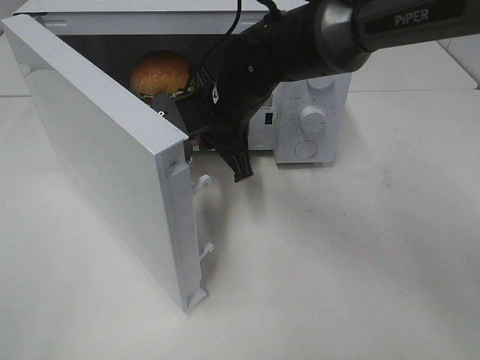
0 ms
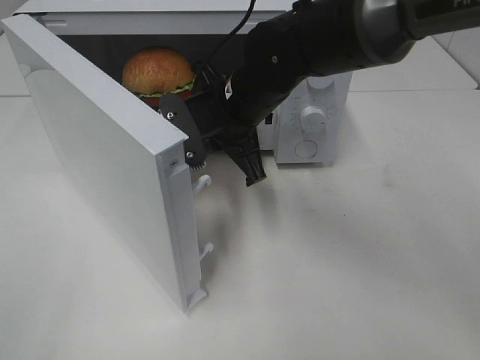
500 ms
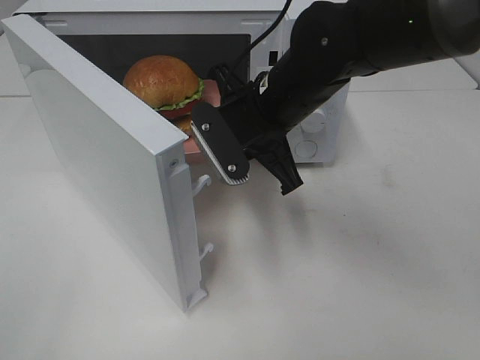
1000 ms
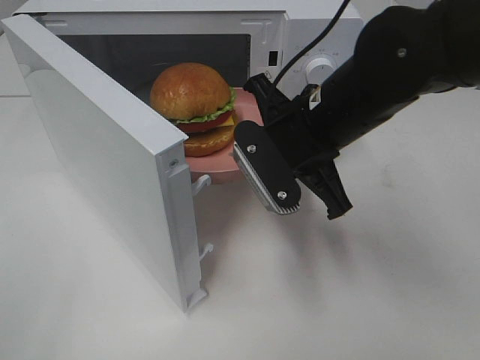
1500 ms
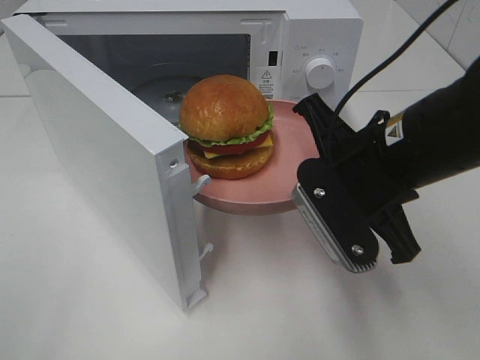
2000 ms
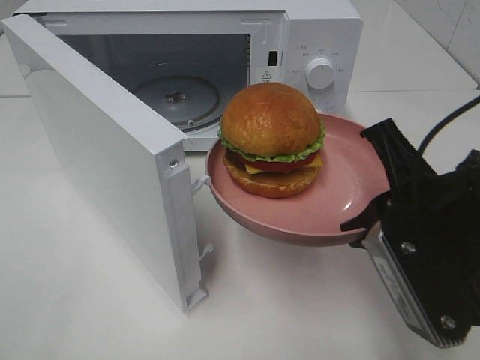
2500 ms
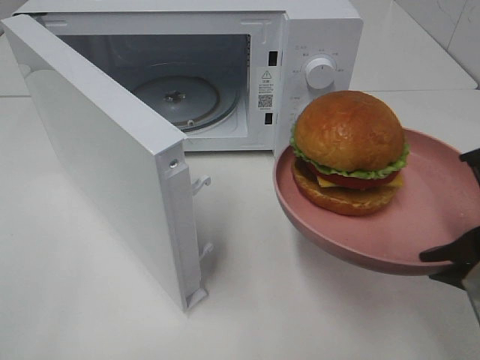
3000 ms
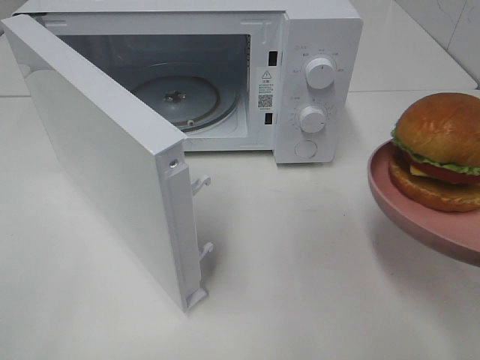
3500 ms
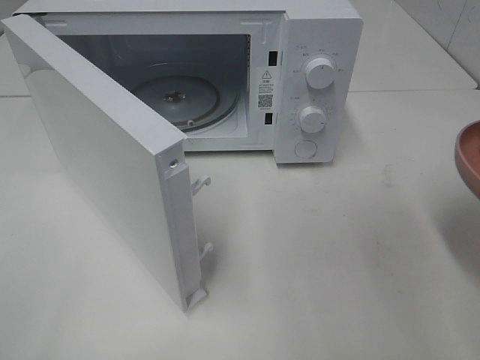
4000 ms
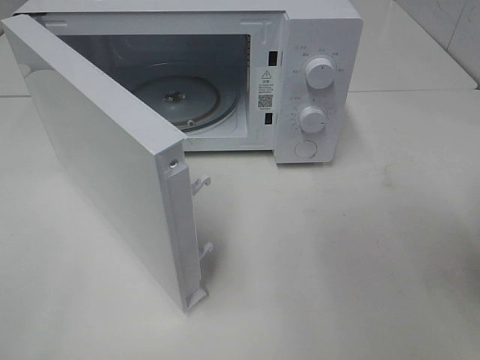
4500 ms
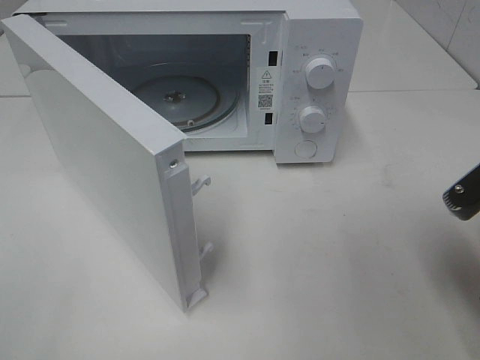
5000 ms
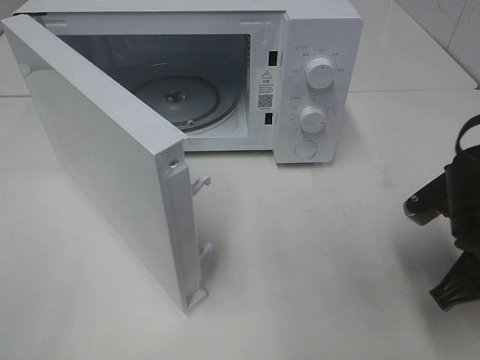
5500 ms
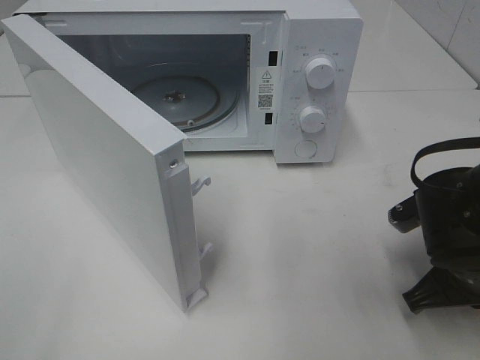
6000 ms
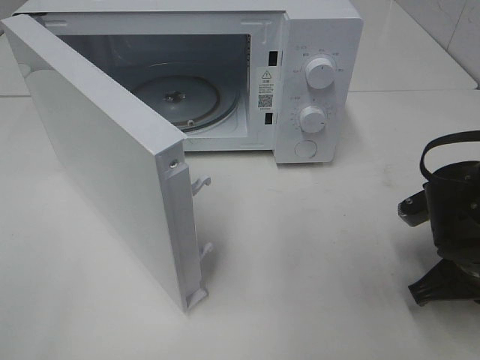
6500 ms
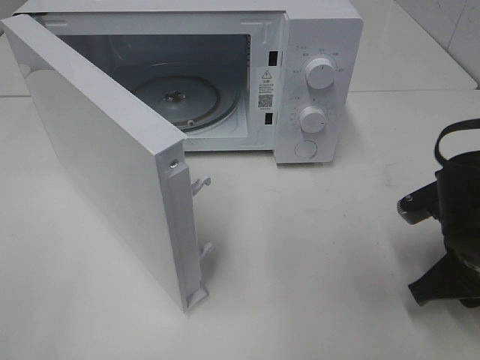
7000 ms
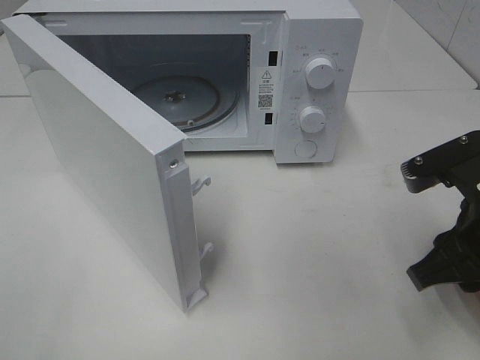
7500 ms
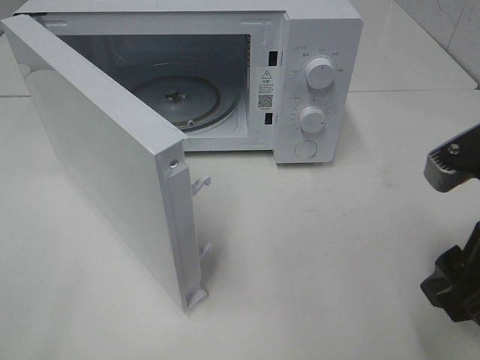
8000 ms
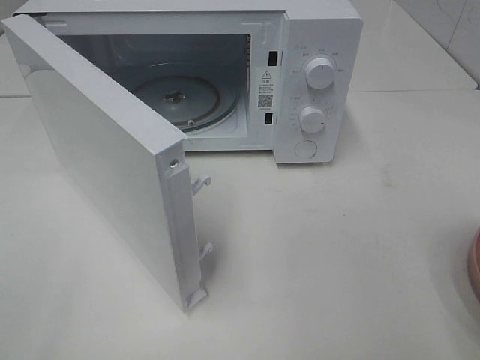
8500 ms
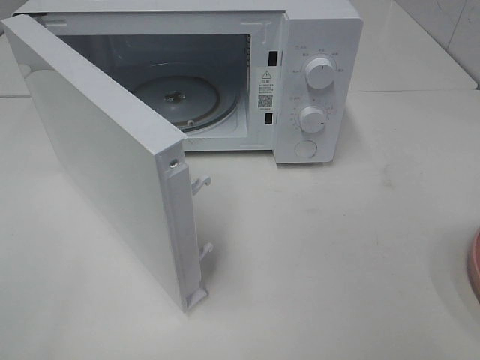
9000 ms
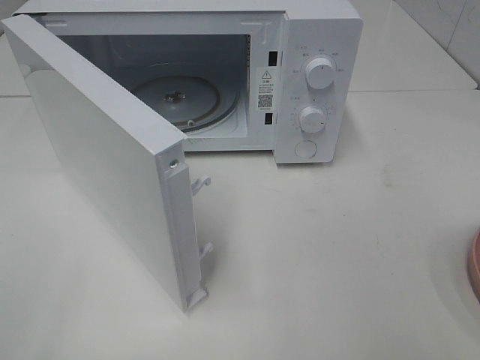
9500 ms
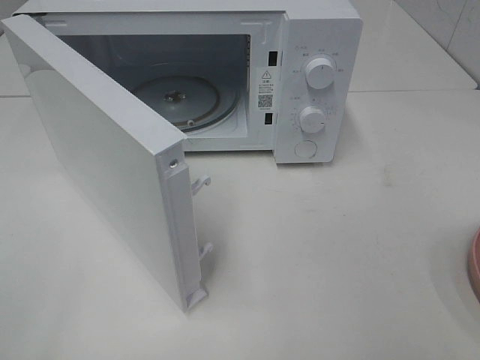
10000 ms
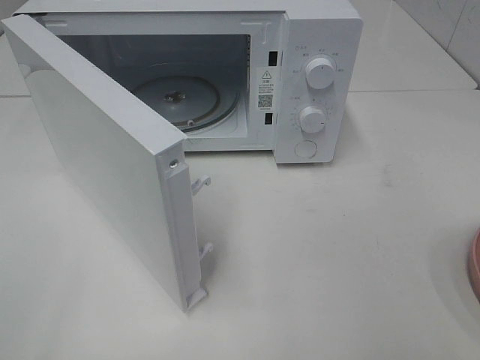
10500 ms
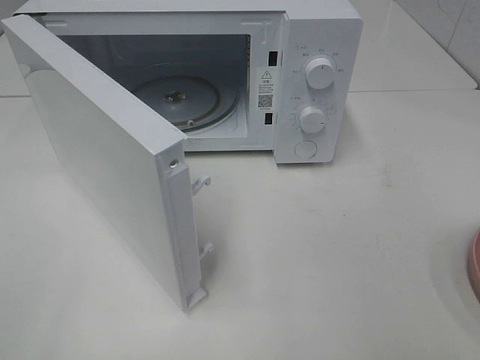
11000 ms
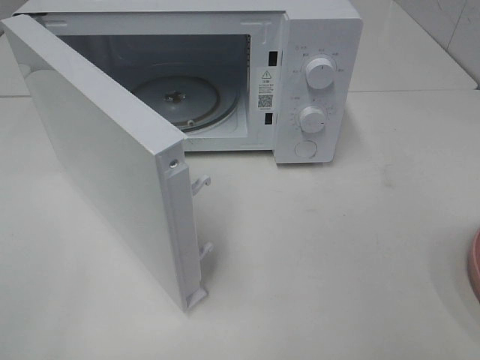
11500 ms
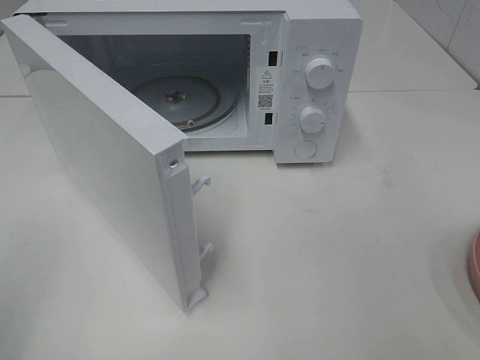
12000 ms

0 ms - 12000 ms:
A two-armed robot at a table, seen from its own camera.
Task of the whole recording: Heat the burger.
Step, 0 ms - 7000 ms: Right hand: place the plate on the table.
0 ms - 2000 ms: The right gripper moves backward and to the right, approximately 20 cm.
2000 ms - 4000 ms: The right gripper heads to the right and backward, covering roughly 15 cm.
4000 ms - 6000 ms: The right gripper travels downward and forward by about 15 cm.
6000 ms - 8000 ms: The right gripper heads upward and backward, covering approximately 15 cm, and opens its fingers.
8000 ms - 10000 ms: The right gripper goes roughly 15 cm backward and to the right.

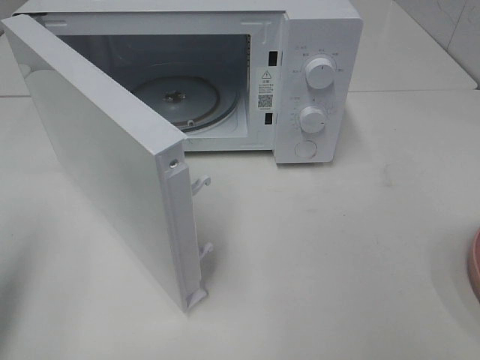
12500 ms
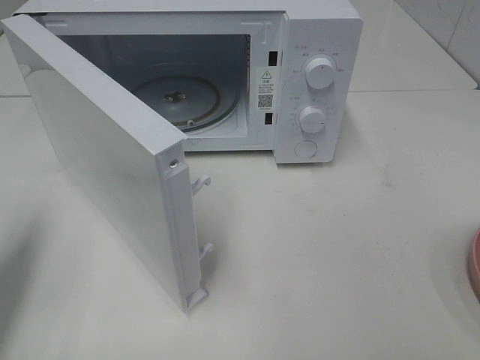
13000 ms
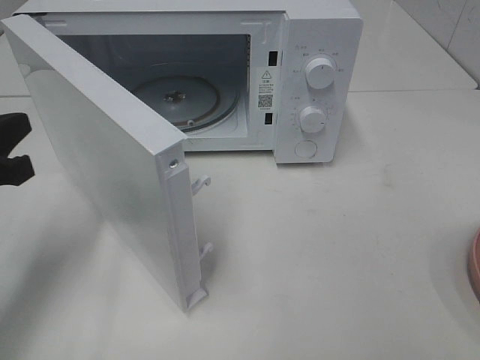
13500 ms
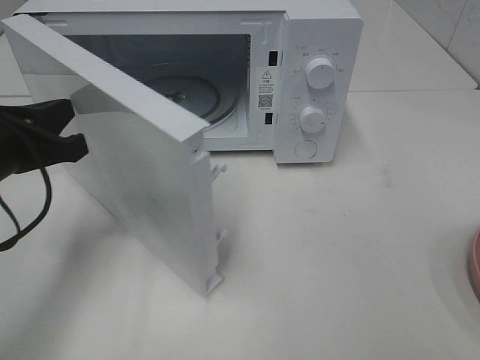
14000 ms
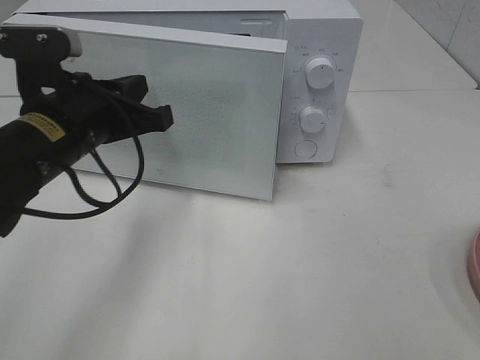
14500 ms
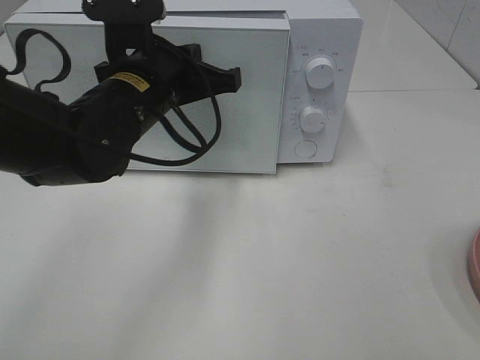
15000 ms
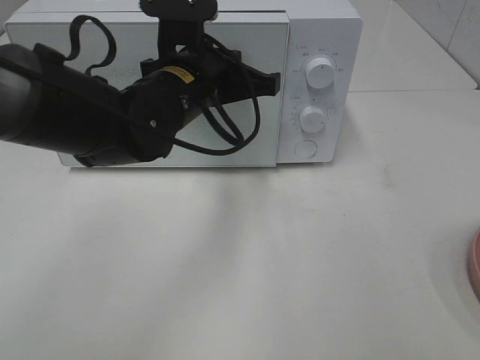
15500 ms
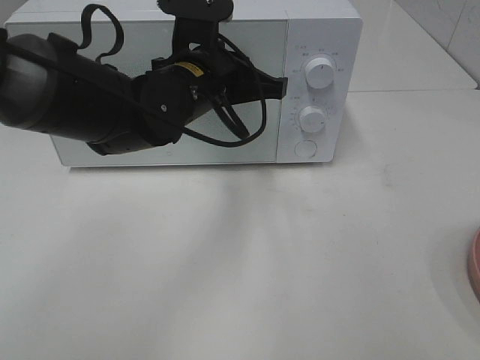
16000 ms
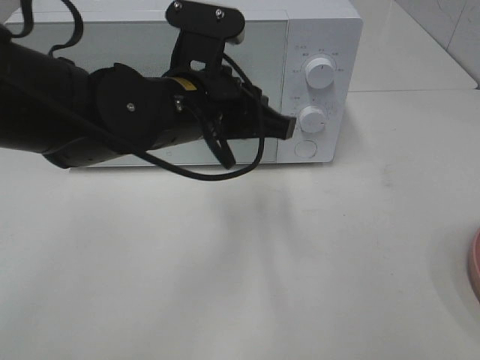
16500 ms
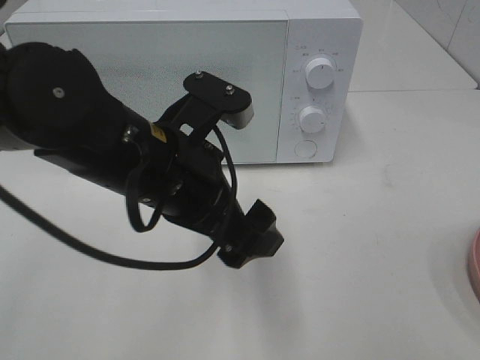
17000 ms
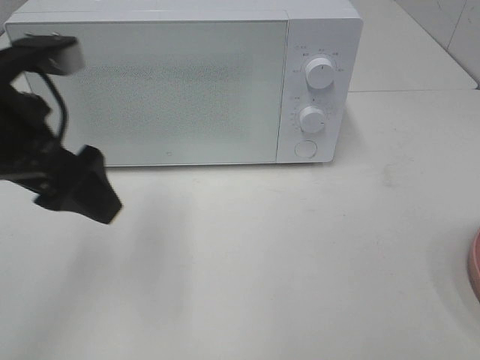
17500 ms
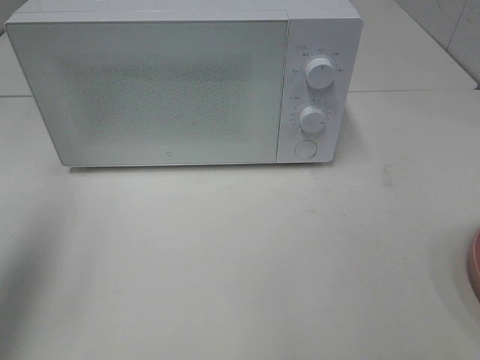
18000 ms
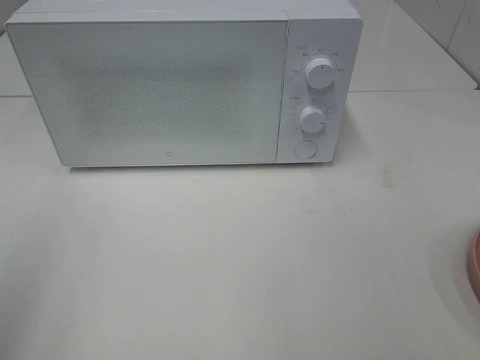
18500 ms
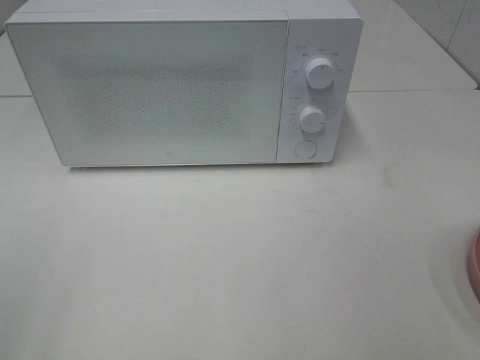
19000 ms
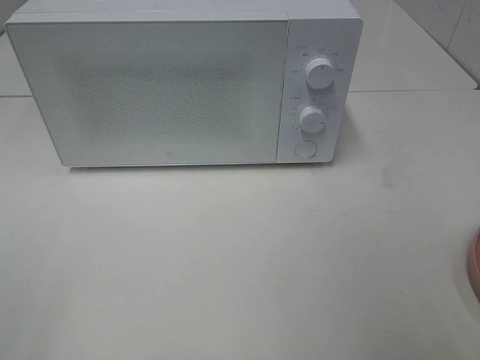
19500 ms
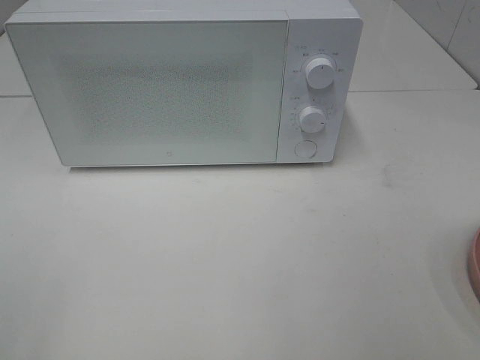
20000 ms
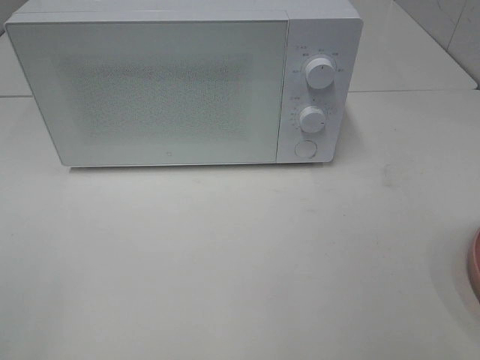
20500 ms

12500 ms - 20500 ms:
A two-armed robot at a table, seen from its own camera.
Task of the whole recording: Heat the burger.
Step, 12500 ms - 16000 ms: Left hand: close the microwave door.
12500 ms - 14500 ms: The left gripper is displaced to the right and forward by about 20 cm.
14500 ms - 16500 ms: The left gripper moves to the right, about 10 cm, and opens its fingers.
16500 ms - 18500 ms: The left gripper shifts roughly 40 cm to the left, backward and upward, and opens.

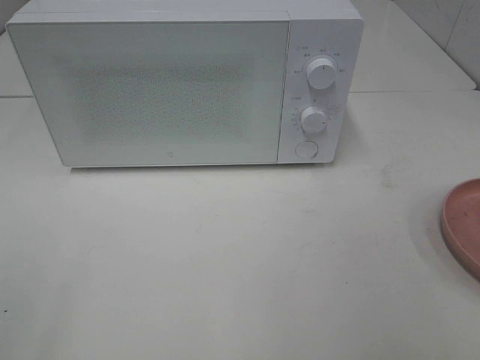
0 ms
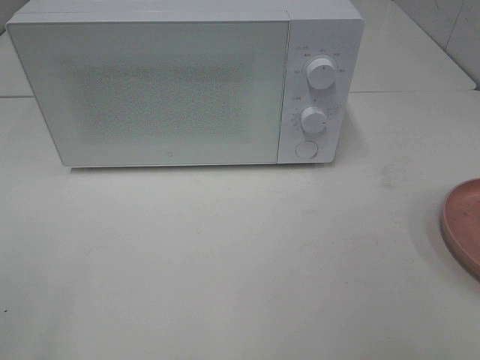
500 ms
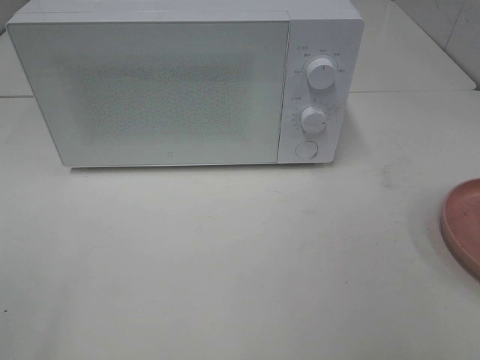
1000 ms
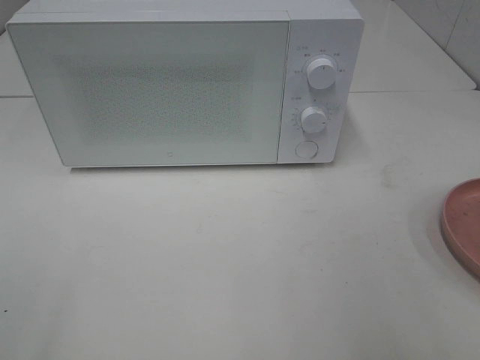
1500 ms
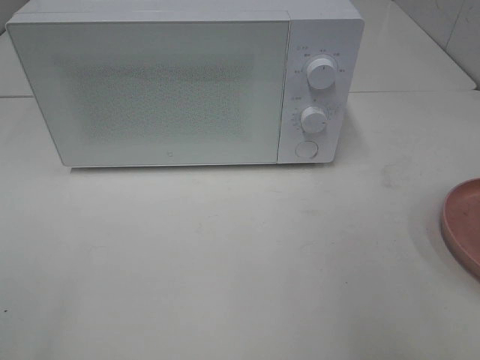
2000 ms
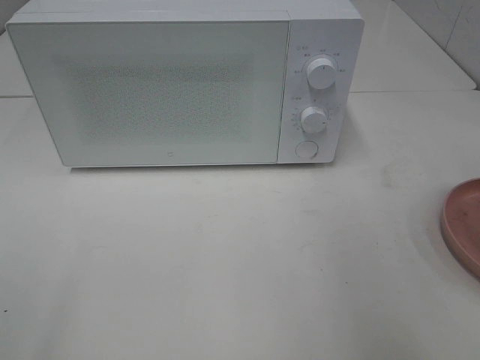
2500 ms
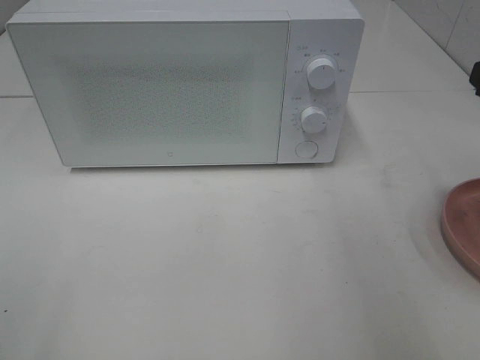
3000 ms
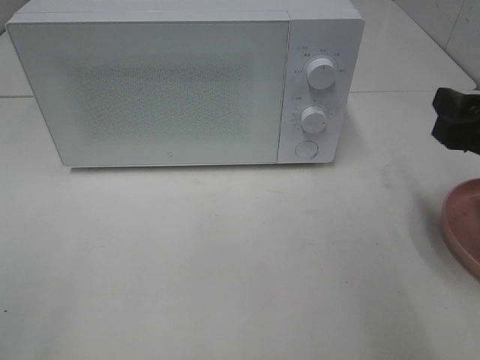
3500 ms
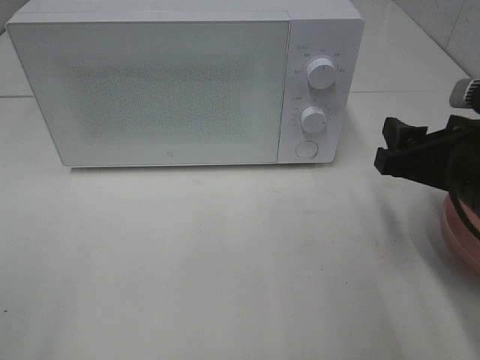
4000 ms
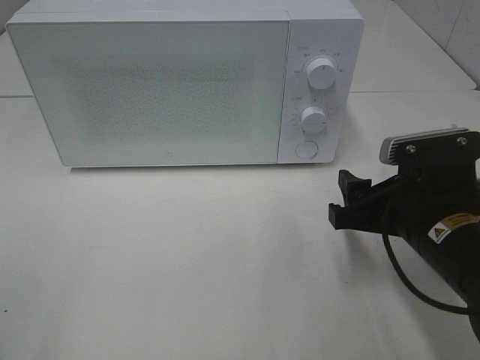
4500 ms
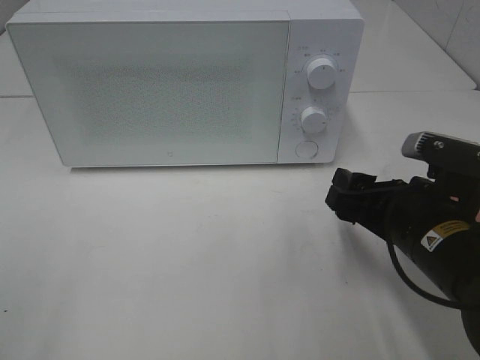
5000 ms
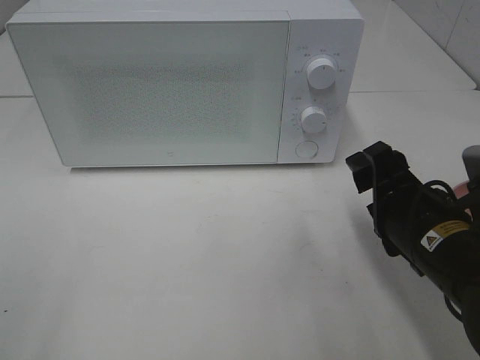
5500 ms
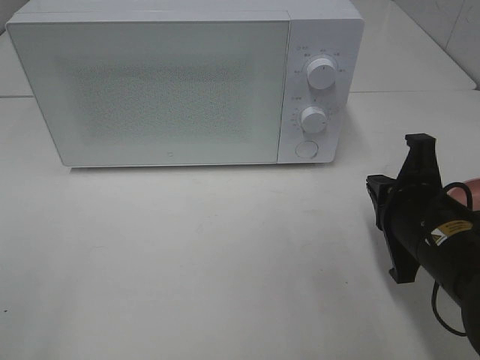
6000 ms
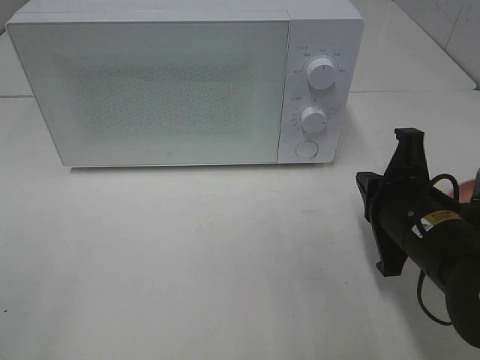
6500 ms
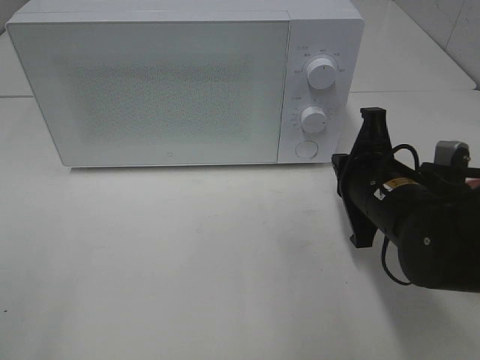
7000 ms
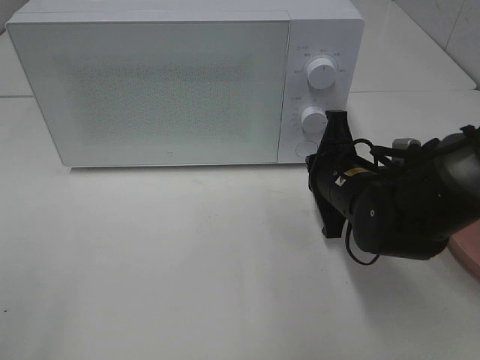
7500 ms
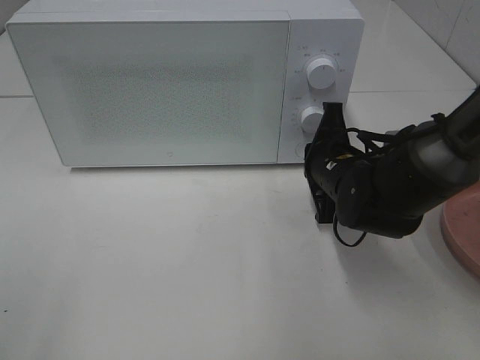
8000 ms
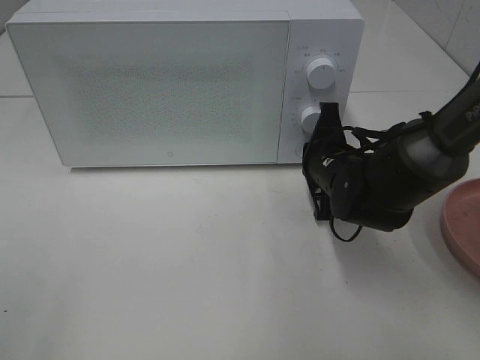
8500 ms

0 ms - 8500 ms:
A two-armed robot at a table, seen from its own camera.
Task of the whole recording: Heat the burger.
2000 ms - 4000 ms: The right gripper goes some 15 cm downward, forward and to the left.
4000 ms - 6500 ms: The right gripper moves approximately 5 cm, and closes up.
6500 ms - 8500 ms: The right gripper is displaced forward by approximately 10 cm.
